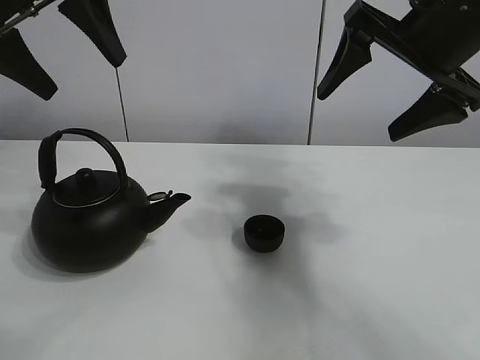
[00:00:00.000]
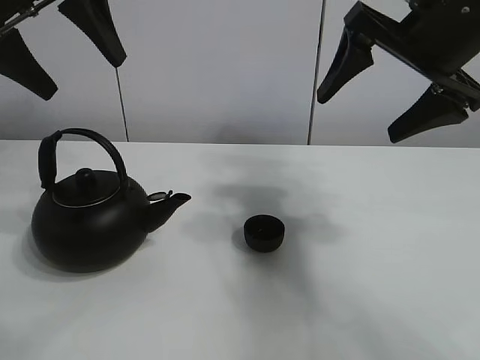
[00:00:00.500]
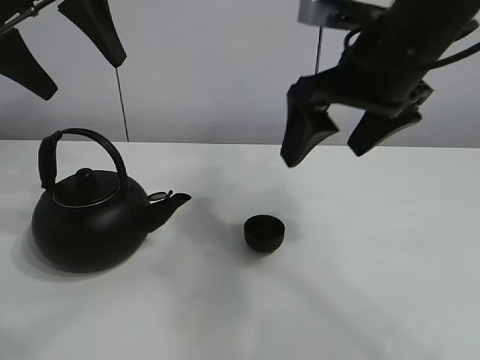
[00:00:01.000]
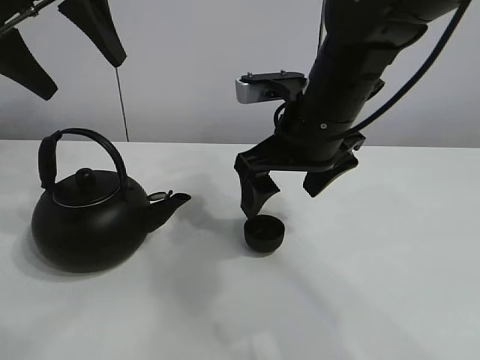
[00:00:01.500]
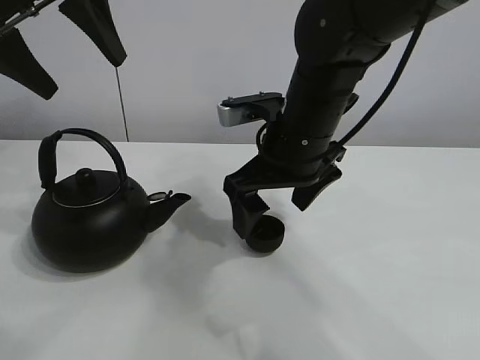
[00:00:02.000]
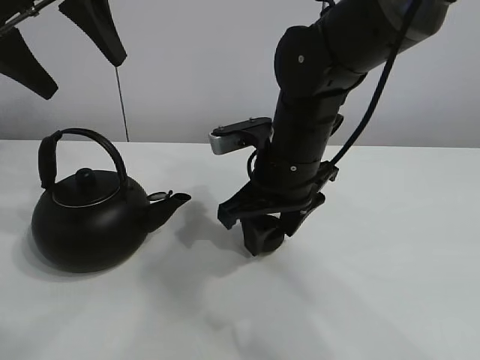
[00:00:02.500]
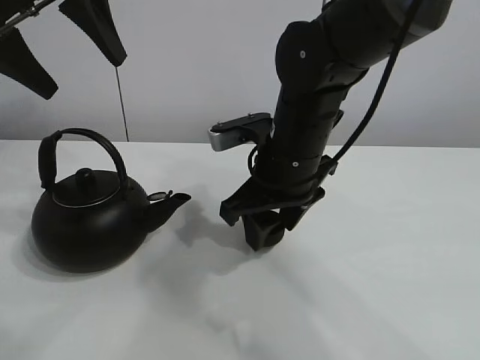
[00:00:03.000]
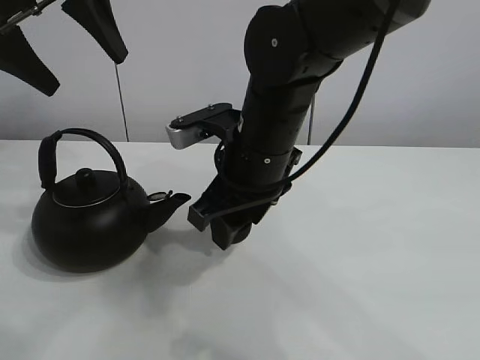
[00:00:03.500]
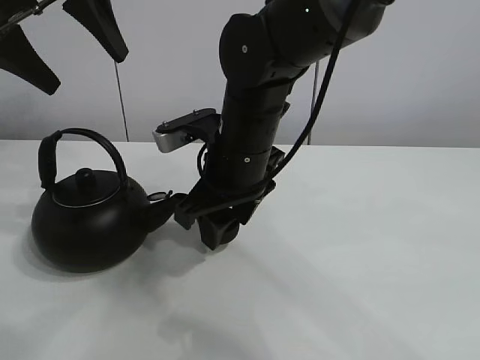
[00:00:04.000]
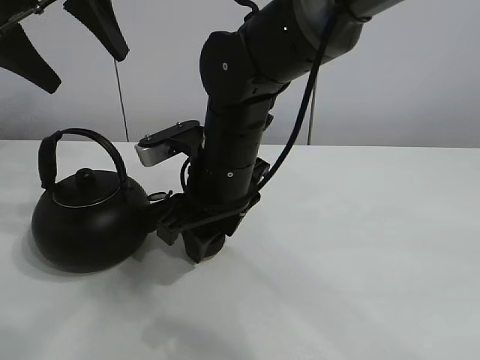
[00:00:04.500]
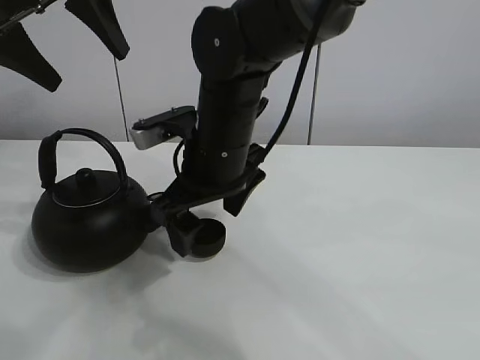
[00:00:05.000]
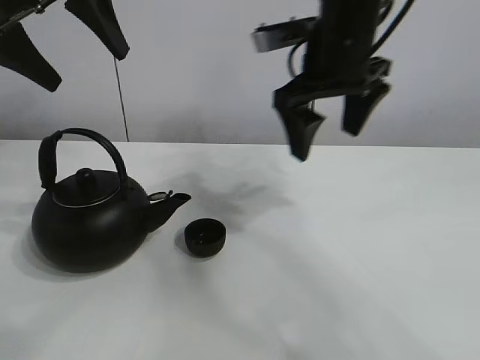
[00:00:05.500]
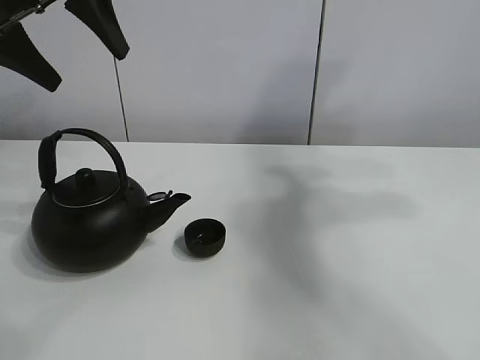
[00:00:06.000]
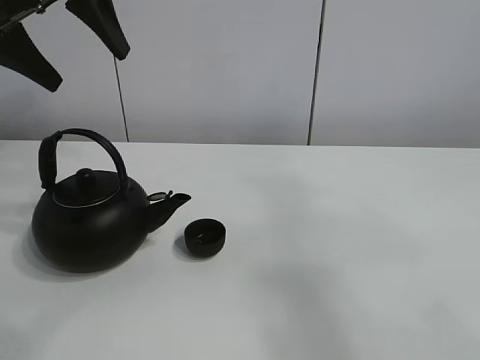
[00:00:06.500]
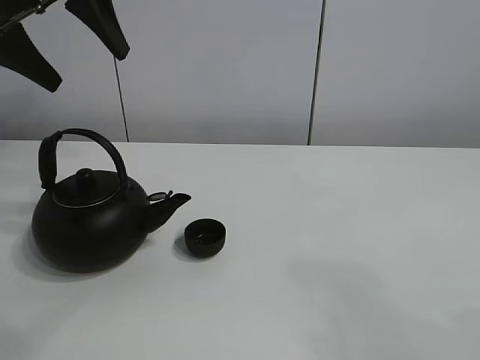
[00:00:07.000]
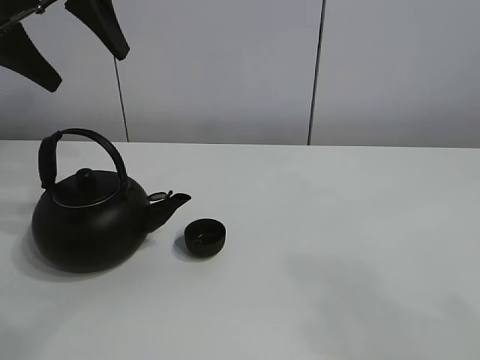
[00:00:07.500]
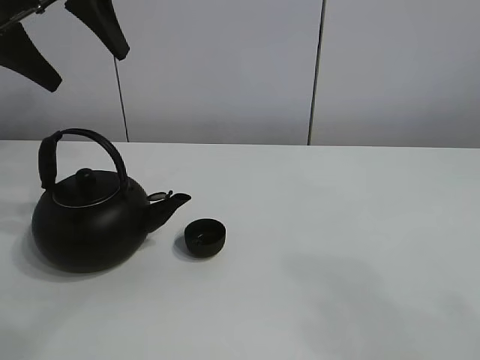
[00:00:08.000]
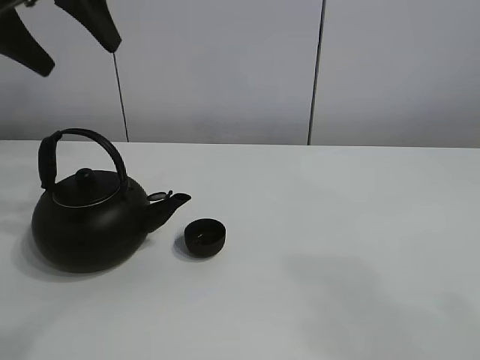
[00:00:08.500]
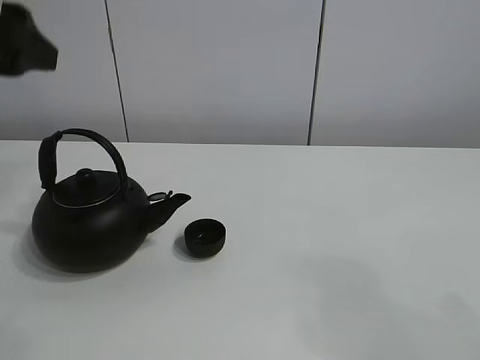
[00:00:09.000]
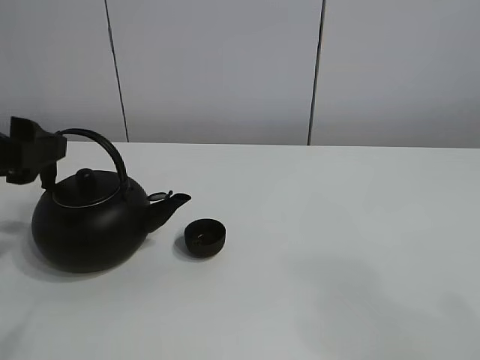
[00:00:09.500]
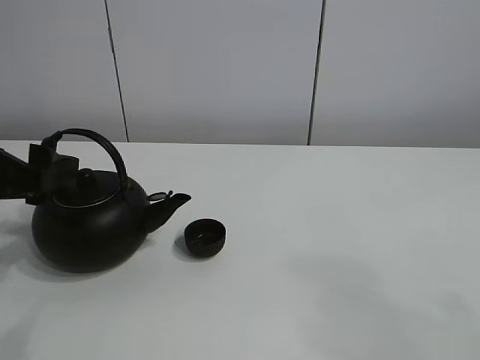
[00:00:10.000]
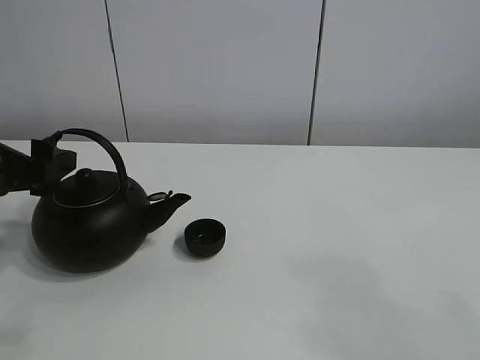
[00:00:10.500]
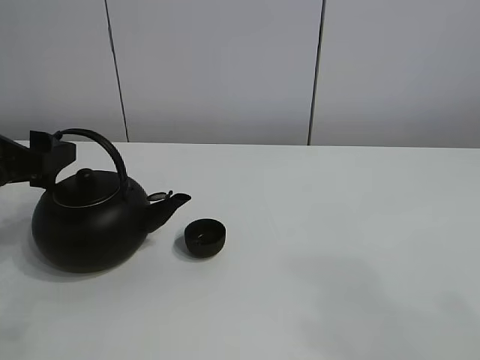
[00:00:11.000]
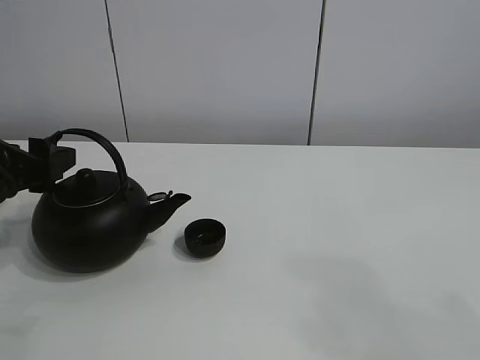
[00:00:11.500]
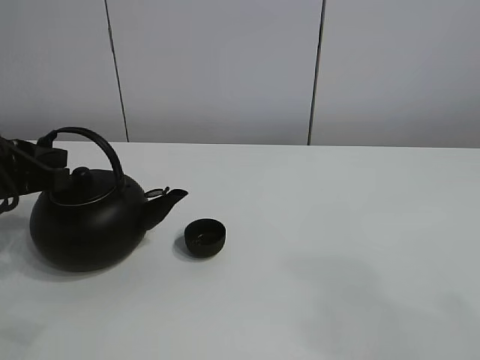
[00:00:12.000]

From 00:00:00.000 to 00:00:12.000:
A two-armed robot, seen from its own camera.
Task of the whole recording: pour tea into the teacup.
Step, from 00:00:00.000 to 00:00:03.000: Pick up the teacup with the right gripper.
Step, from 00:00:03.500 to 00:00:04.500: Place the teacup in the center of view with the right gripper.
From 00:00:02.000 to 00:00:04.000: The right gripper moves to the left, some 5 cm, and closes.
From 00:00:04.000 to 00:00:06.000: The right gripper travels to the right and upward by some 40 cm, and opens up.
From 00:00:06.000 to 00:00:08.000: The right gripper shifts about 35 cm backward.
From 00:00:08.000 to 00:00:10.000: The left gripper travels downward and backward by roughly 20 cm.
From 00:00:10.000 to 00:00:12.000: The left gripper closes its fingers.

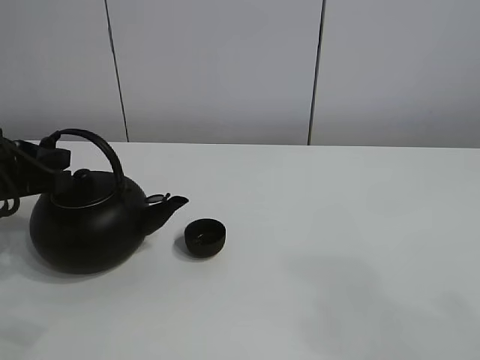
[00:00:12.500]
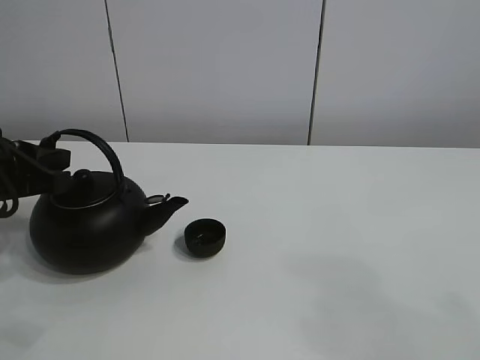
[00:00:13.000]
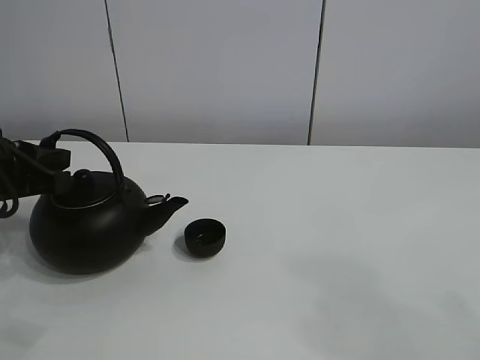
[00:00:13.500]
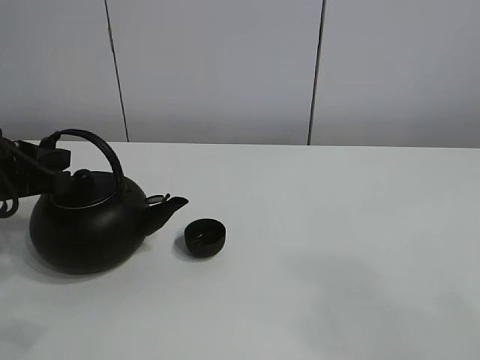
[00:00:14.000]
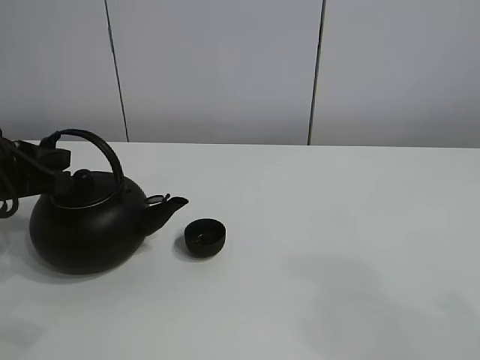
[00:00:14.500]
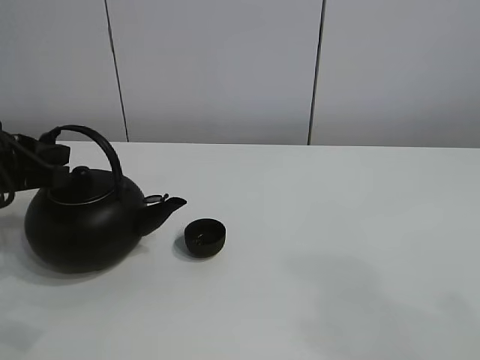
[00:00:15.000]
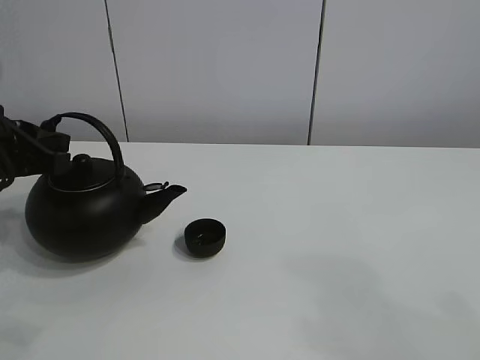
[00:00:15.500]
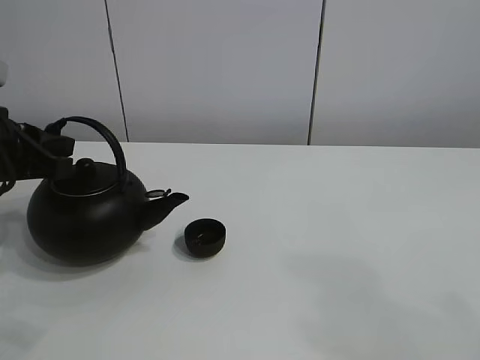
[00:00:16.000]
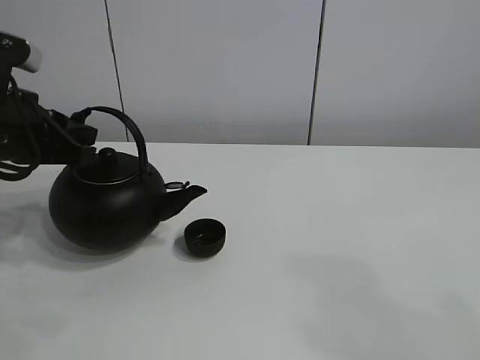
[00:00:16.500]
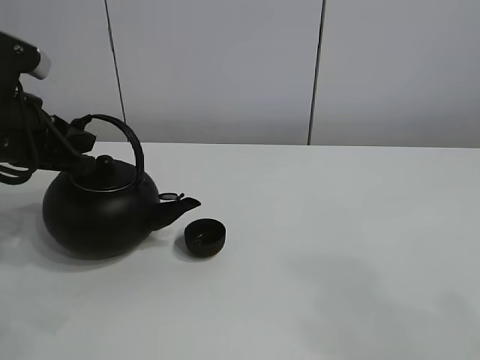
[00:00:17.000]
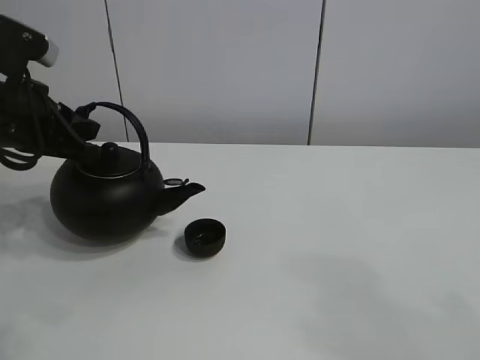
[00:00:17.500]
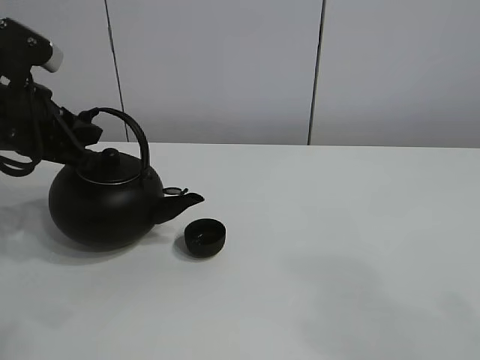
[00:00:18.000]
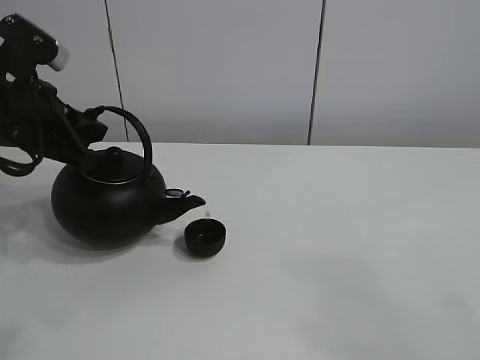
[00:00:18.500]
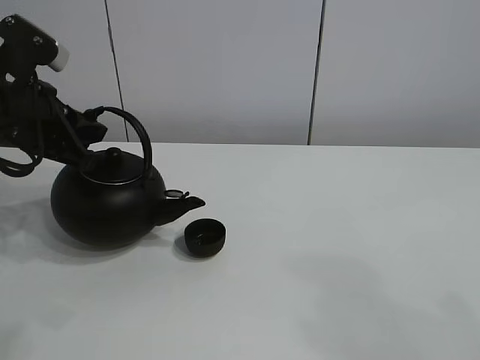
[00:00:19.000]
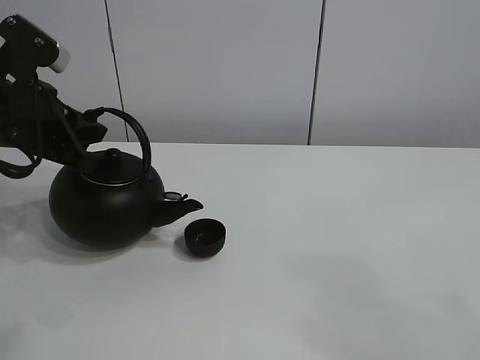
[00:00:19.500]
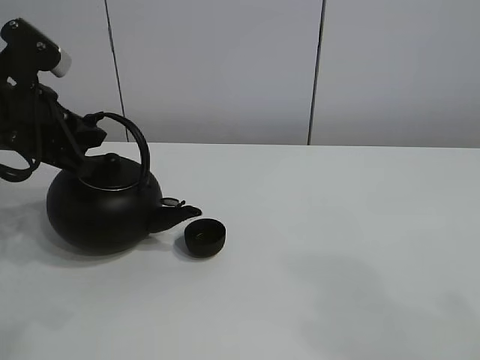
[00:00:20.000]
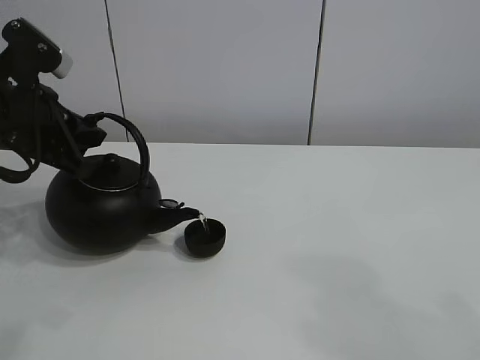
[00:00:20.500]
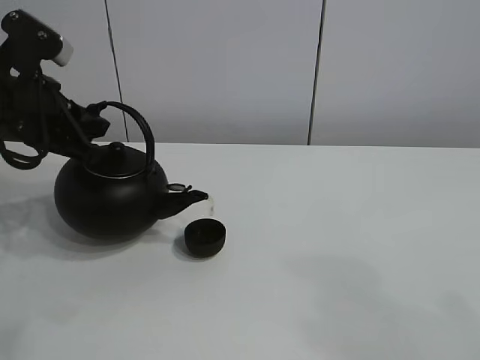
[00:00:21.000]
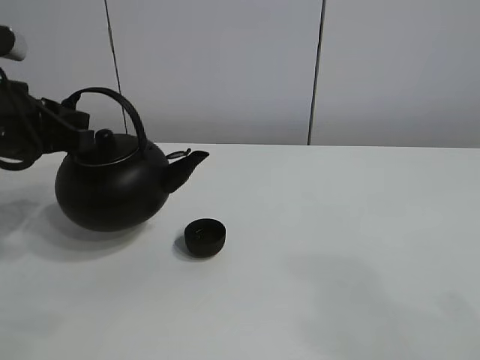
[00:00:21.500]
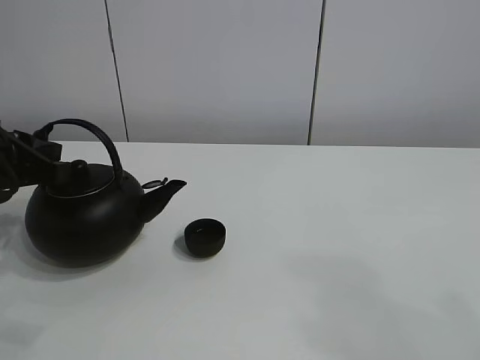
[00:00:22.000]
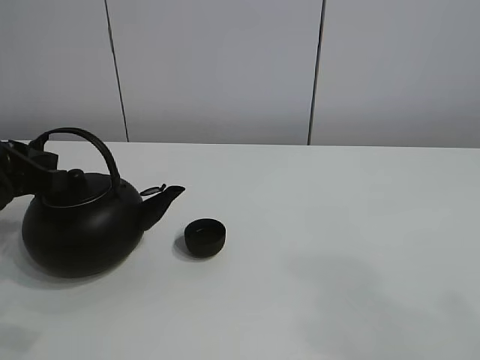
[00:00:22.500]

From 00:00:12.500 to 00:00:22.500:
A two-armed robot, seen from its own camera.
Task of the whole recording: pour tea into the teacup.
Step, from 00:00:12.500 to 00:00:15.000: Pick up the teapot with the left gripper.
Step, from 00:00:15.500 to 00:00:21.000: Pour tea into the teacup with the left gripper.
From 00:00:12.500 to 00:00:14.500: Both grippers stay about where they are.
From 00:00:14.500 to 00:00:16.500: The left gripper changes place by approximately 5 cm.
From 00:00:16.500 to 00:00:18.500: The grippers make only small movements.
From 00:00:18.500 to 00:00:20.500: Neither gripper changes place.
From 00:00:20.500 to 00:00:22.500: The left gripper heads backward, covering some 5 cm.

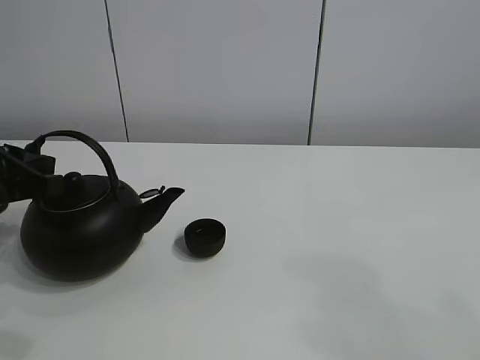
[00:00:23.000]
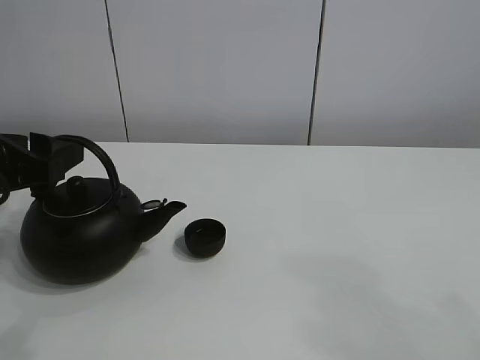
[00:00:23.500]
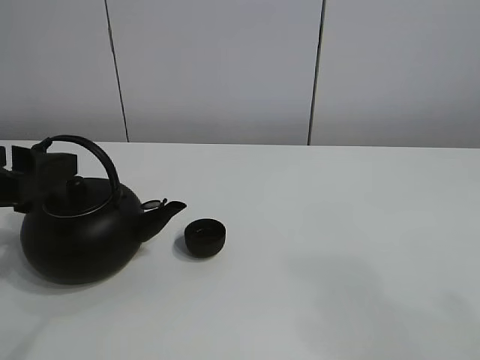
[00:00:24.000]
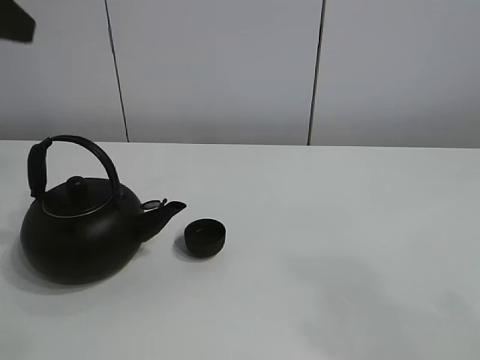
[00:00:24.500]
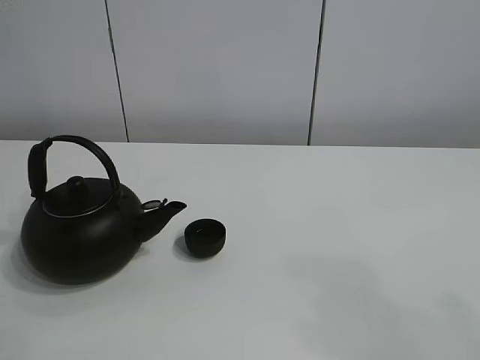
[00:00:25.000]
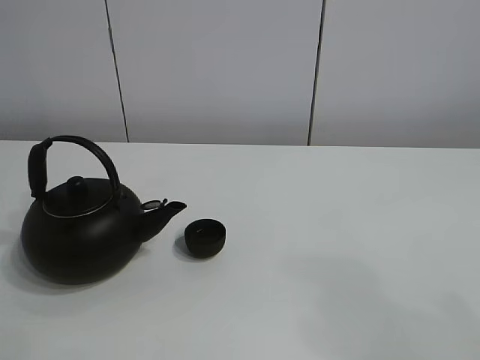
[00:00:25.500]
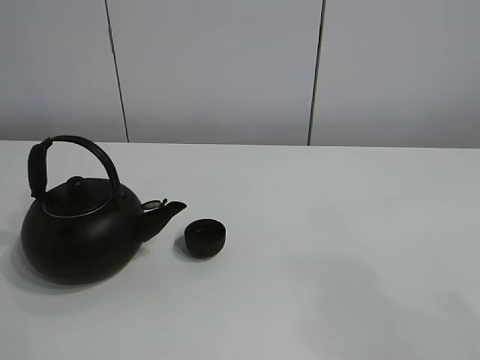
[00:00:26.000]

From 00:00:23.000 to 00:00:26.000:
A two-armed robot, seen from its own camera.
Task of the whole recording: pour tea into the teacup.
From 00:00:23.000 to 00:00:24.500: The left gripper moves upward, about 15 cm, and opens.
From 00:00:24.500 to 00:00:26.000: The left gripper heads backward, covering approximately 25 cm.
